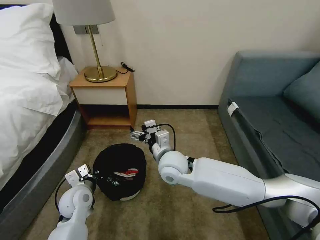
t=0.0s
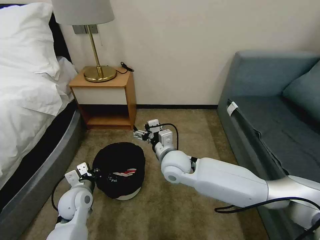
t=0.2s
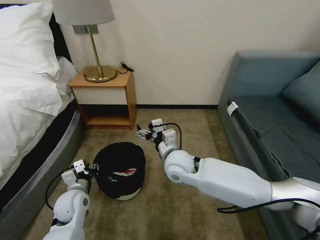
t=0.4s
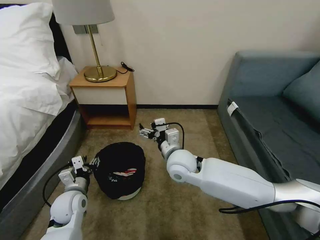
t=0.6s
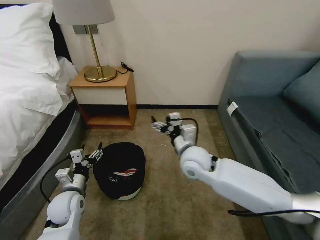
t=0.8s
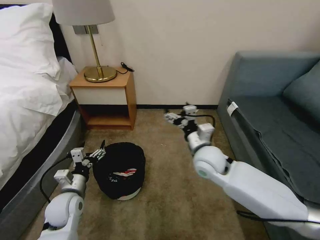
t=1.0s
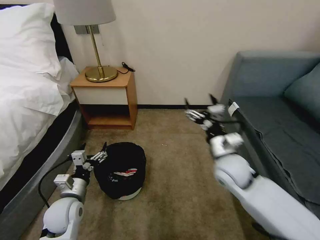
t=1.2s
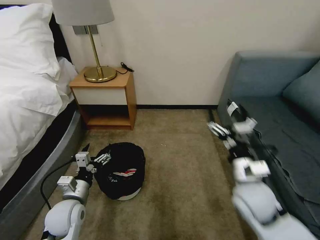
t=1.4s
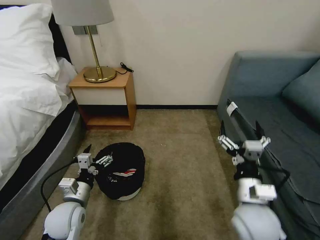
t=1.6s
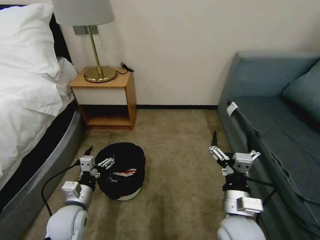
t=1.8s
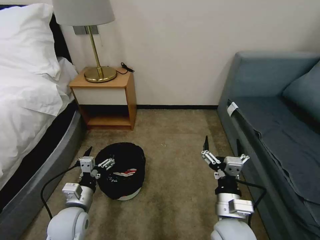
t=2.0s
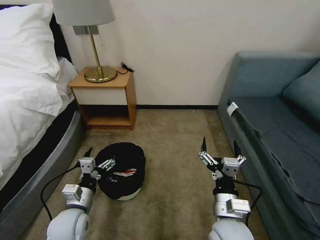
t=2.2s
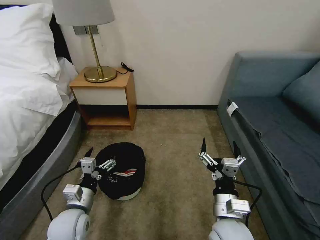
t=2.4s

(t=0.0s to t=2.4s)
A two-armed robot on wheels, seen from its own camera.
Task of the whole recording: Pick up the trash bin, then pick up the garbage on the floor and place it into the trash bin.
t=0.0s - t=1.2s: The left gripper opens its fingers; the right gripper goes approximately 15 cm to the right.
t=1.2s - t=2.4s: The right gripper is displaced backward by about 15 cm.

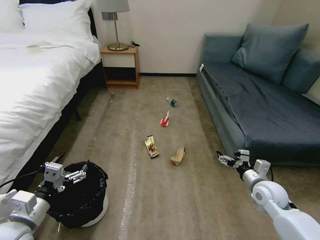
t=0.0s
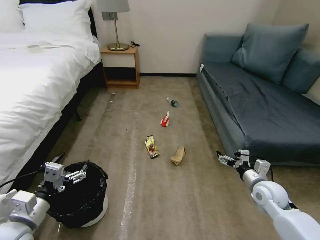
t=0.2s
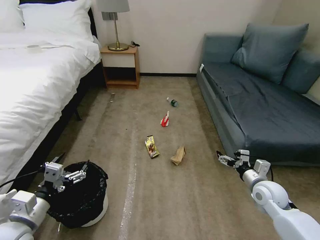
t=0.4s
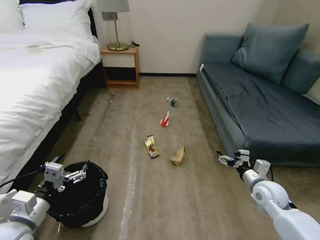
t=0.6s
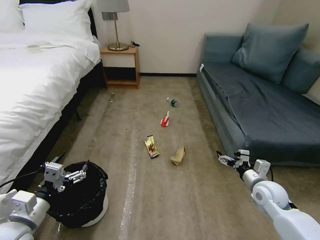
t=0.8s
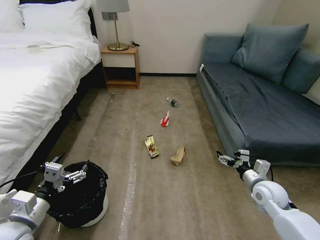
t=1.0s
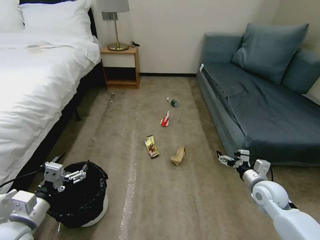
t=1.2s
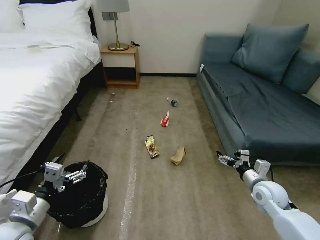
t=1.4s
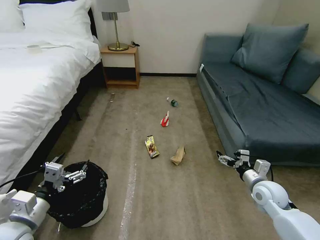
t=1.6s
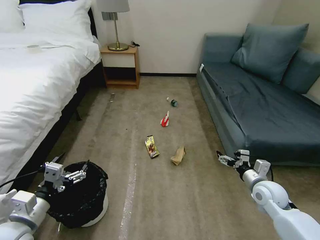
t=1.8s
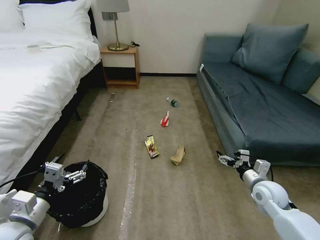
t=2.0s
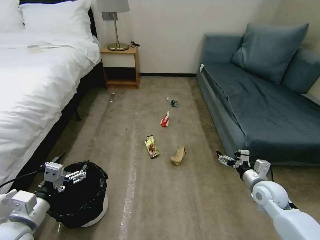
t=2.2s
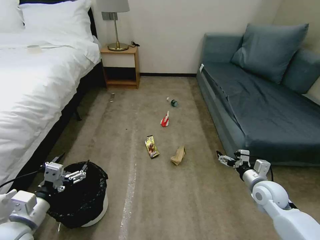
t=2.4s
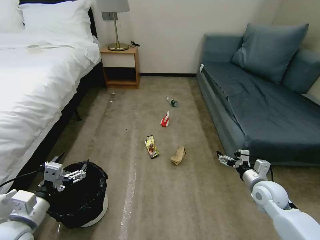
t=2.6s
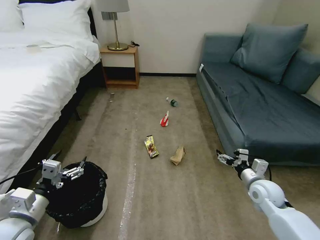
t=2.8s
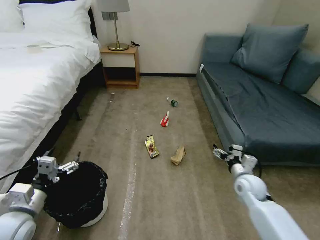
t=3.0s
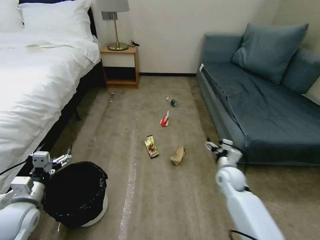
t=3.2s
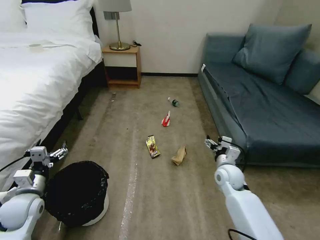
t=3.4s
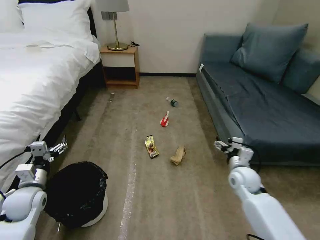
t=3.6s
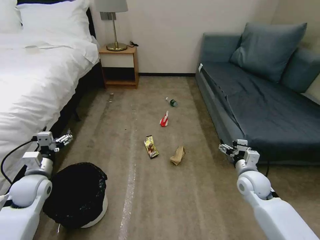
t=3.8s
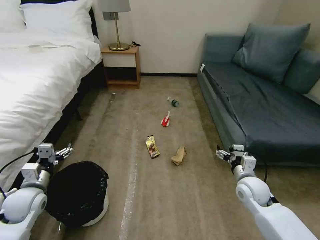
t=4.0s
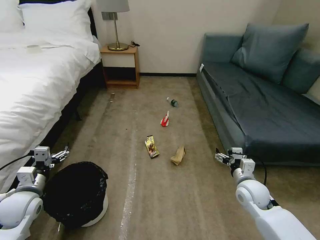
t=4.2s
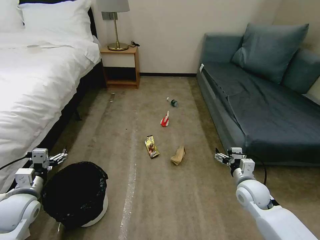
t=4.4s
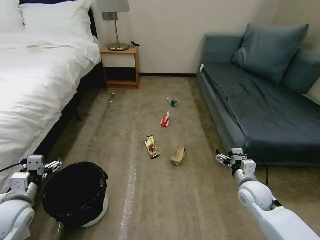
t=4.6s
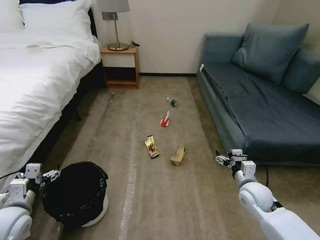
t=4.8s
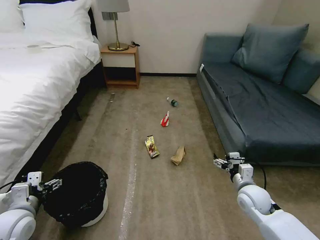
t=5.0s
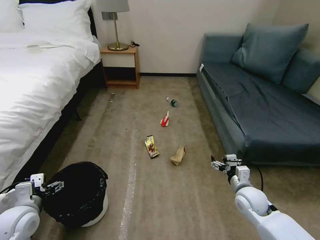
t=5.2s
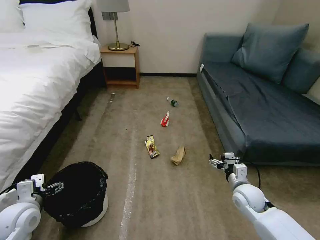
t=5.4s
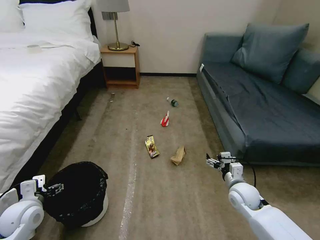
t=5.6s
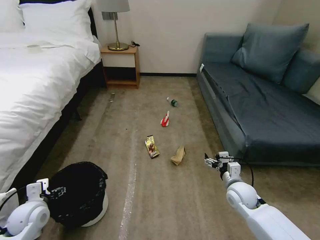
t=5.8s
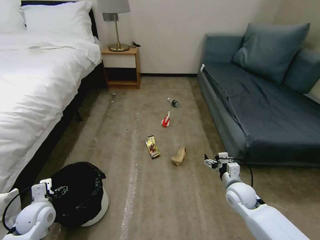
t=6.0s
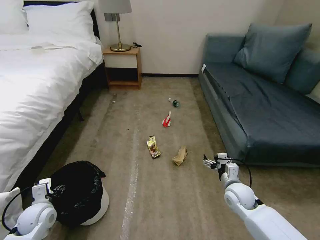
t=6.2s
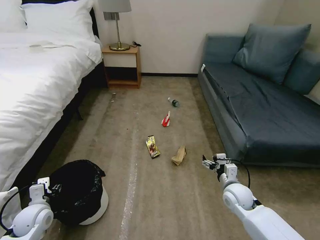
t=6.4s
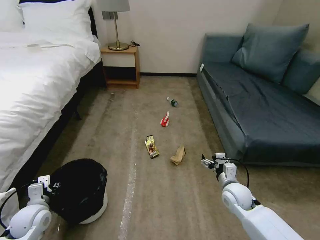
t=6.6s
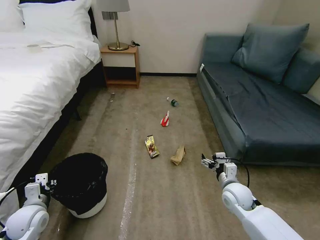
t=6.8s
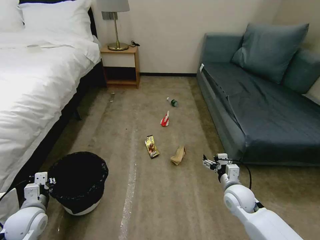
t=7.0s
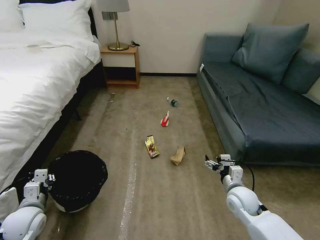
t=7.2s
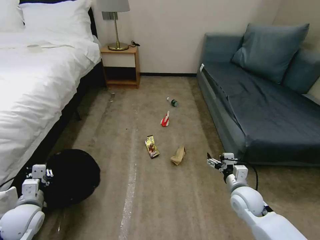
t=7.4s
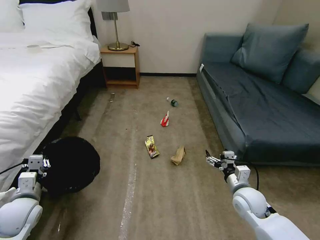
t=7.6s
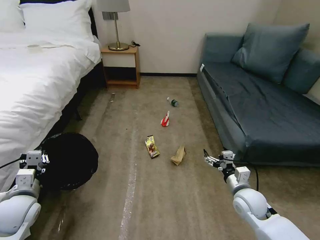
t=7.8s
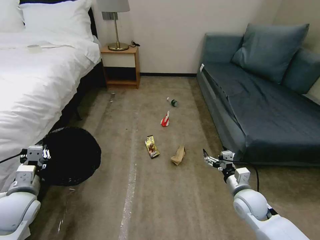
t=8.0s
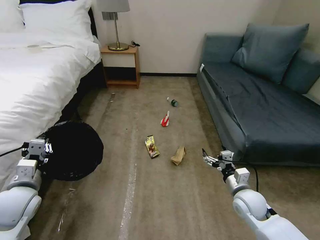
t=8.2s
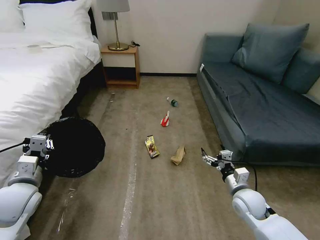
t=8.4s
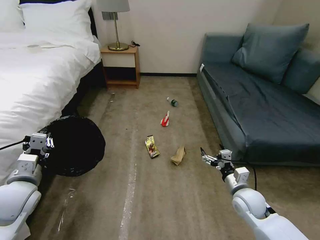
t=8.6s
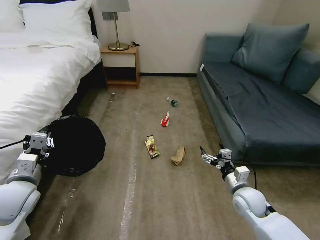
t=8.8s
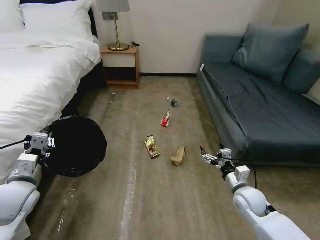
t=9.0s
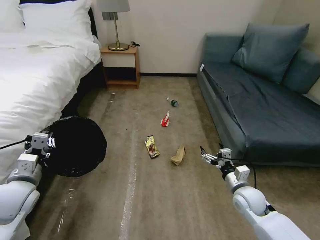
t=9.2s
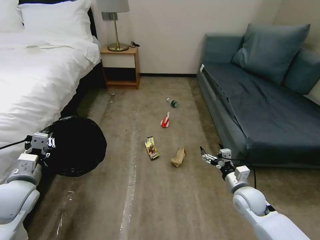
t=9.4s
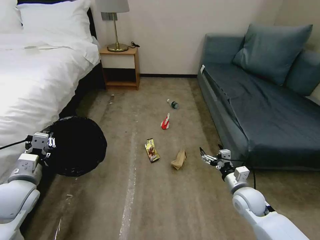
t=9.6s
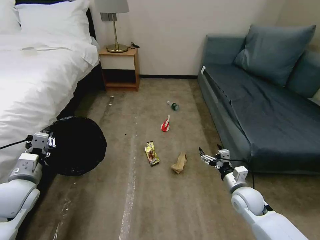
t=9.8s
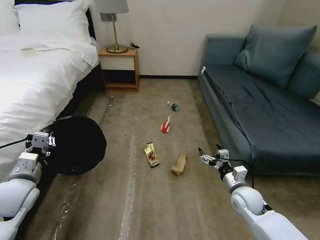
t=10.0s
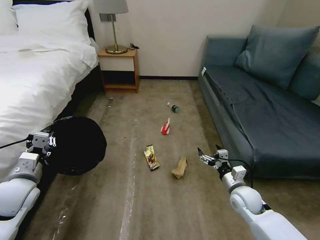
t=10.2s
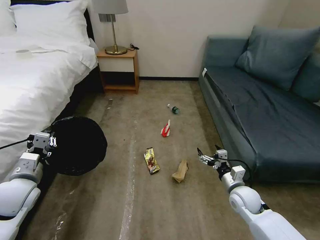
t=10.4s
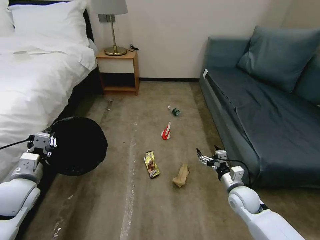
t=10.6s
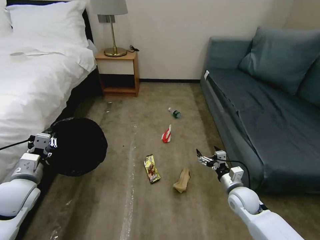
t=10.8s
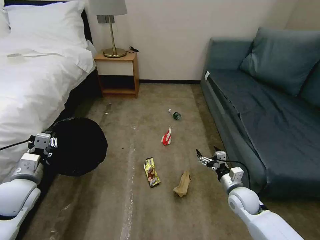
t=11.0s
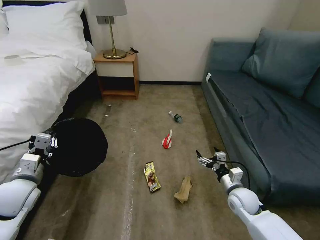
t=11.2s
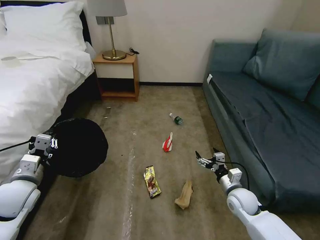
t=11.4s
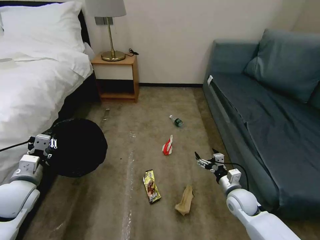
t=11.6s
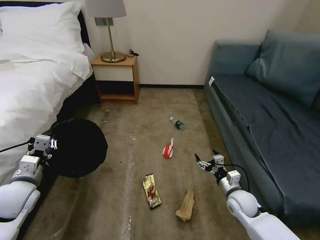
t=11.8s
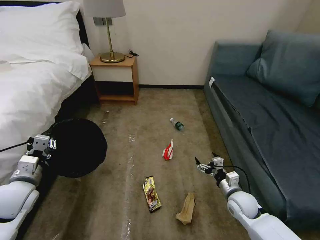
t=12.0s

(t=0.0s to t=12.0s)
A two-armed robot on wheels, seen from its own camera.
Task of the whole recording: Pick up the trash bin, then pick up the garbage on the floor and place it into the trash bin.
t=1.6s - t=3.0s: The grippers move only a little.
t=3.0s - t=4.4s: The right gripper reaches roughly 10 cm to the left, then returns. The left gripper shifts roughly 5 cm forward.
t=4.4s - t=6.0s: The left gripper is displaced downward by roughly 5 cm.
t=6.0s - t=7.6s: The left gripper travels upward by some 5 cm, and closes up.
t=7.6s - t=9.0s: The left gripper is displaced upward by roughly 10 cm.
t=9.0s - t=10.4s: The grippers move only a little.

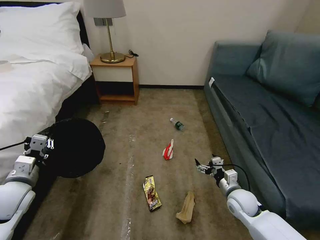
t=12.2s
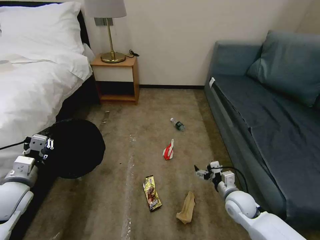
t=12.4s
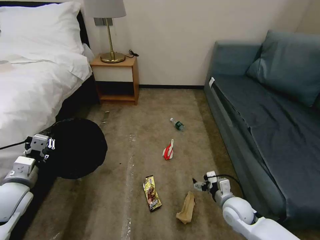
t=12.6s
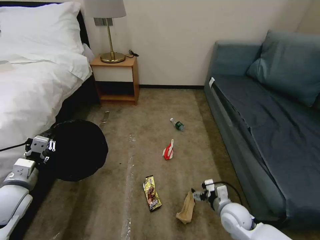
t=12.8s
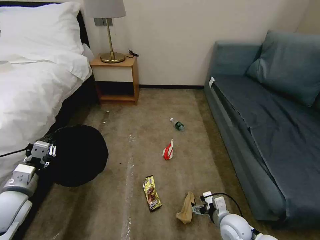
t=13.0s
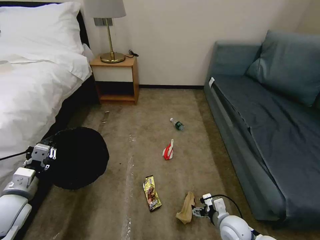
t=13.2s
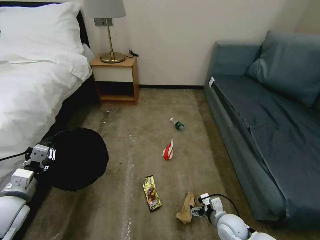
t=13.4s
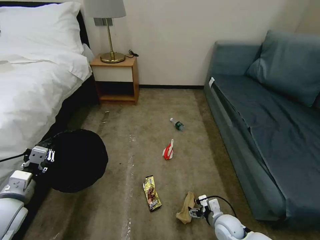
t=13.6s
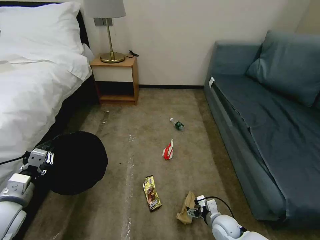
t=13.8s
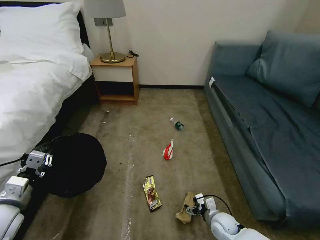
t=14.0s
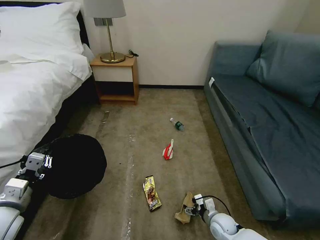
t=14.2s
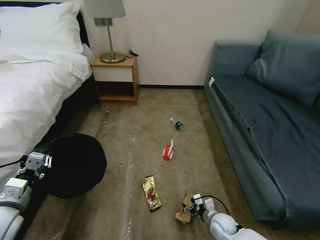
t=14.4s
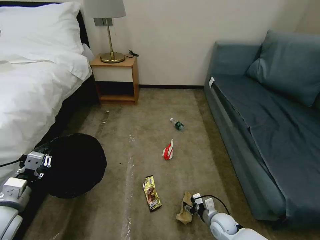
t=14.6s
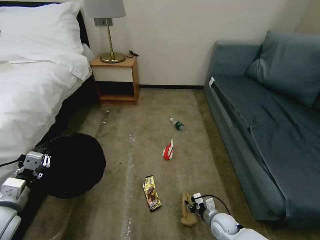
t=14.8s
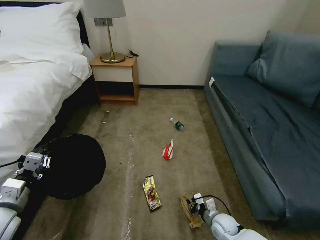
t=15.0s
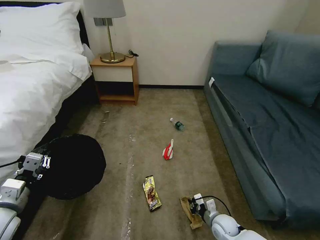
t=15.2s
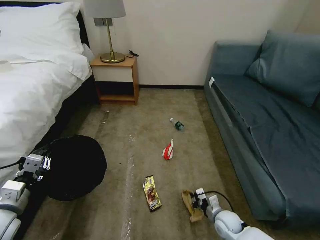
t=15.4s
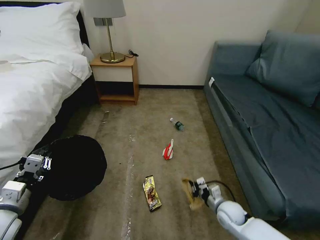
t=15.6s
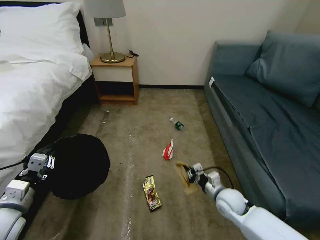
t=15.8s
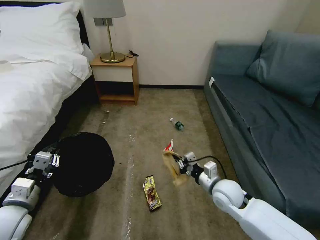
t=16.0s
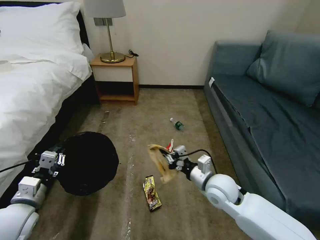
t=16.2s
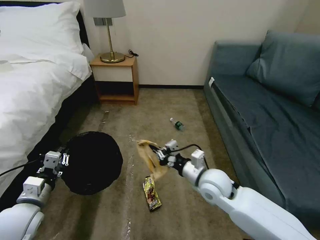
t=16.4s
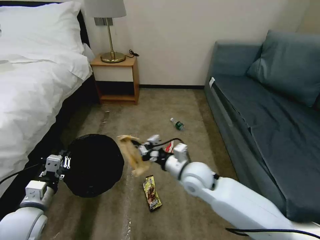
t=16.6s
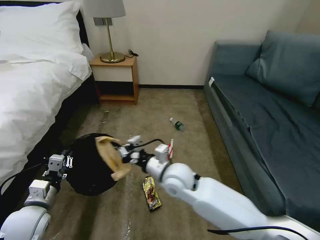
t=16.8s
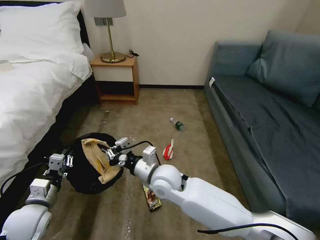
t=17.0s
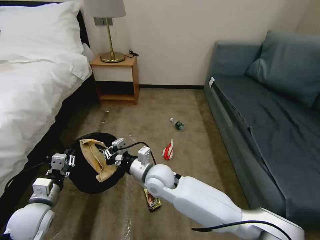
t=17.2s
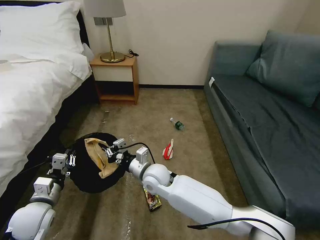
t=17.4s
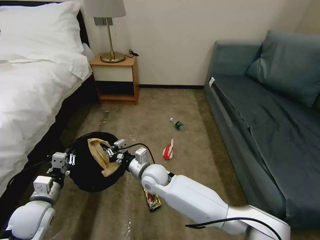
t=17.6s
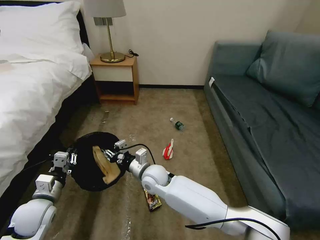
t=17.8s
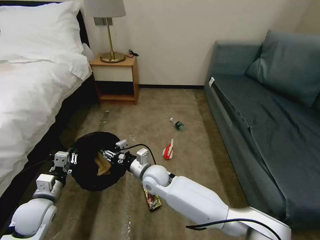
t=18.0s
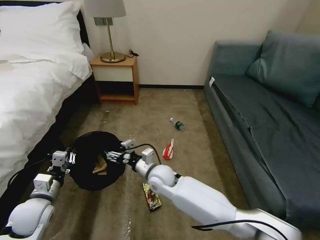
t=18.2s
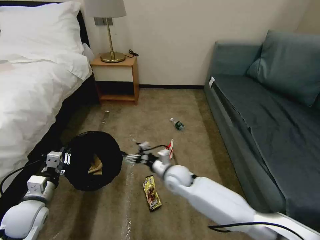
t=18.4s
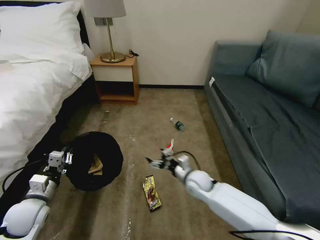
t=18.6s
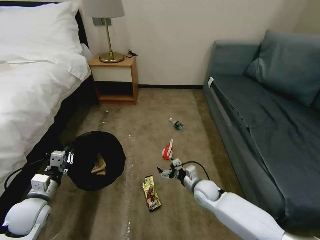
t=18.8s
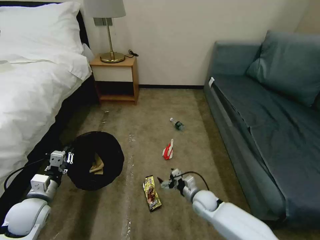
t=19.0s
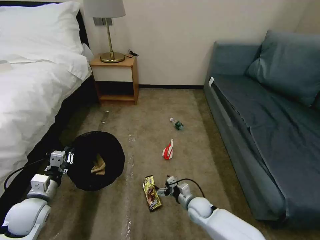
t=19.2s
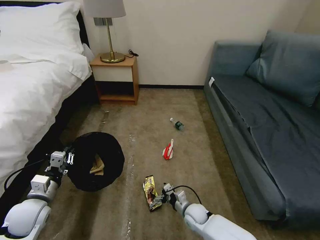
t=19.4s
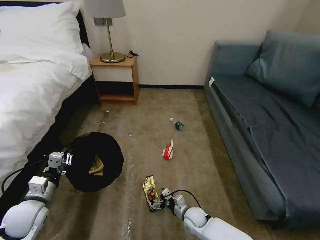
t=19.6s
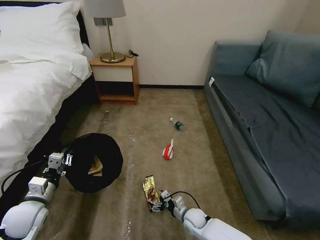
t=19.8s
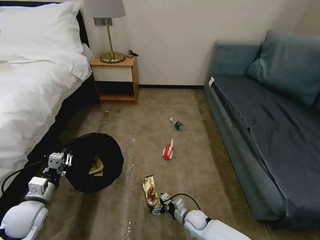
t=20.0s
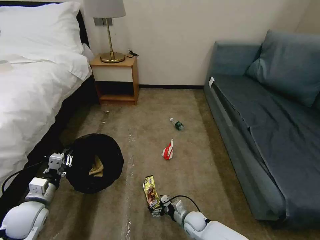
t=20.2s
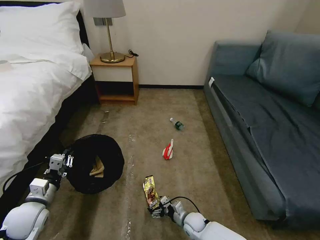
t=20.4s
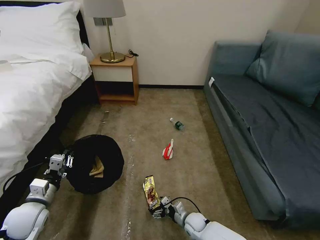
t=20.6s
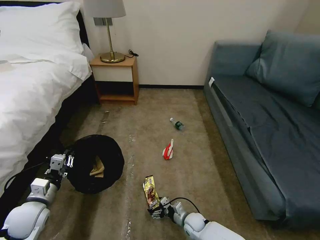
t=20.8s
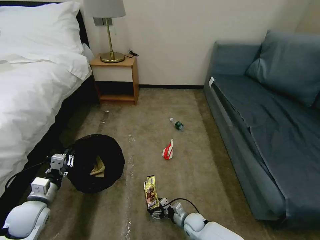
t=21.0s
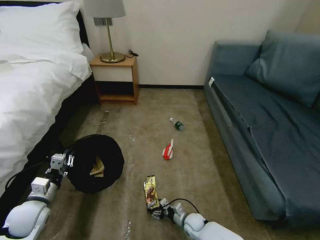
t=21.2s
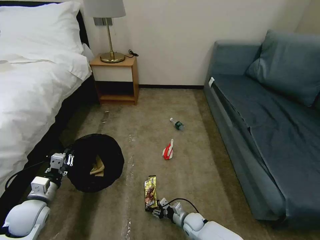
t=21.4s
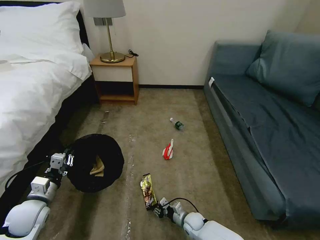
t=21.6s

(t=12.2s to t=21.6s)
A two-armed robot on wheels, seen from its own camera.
Task of the whole recording: Pick up the trash bin, then pick up the garbage on the floor and place it into the trash bin.
t=12.2s - t=13.8s: The right gripper moves downward and backward, some 10 cm, while the left gripper heads backward, covering about 5 cm.
t=13.8s - t=15.4s: The right gripper closes its fingers.
t=15.4s - t=17.0s: The right gripper travels upward and to the left by about 35 cm; the left gripper changes place by about 5 cm.
t=17.0s - t=18.4s: The right gripper goes some 10 cm downward and forward, and opens its fingers.
t=18.4s - t=20.0s: The right gripper moves downward and backward, some 25 cm.
t=20.0s - t=21.6s: The right gripper closes.
